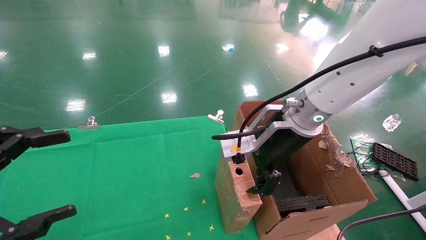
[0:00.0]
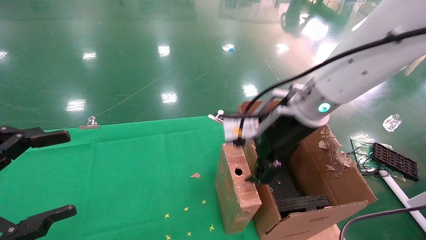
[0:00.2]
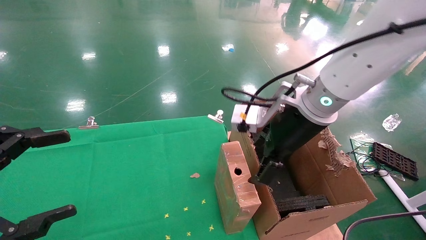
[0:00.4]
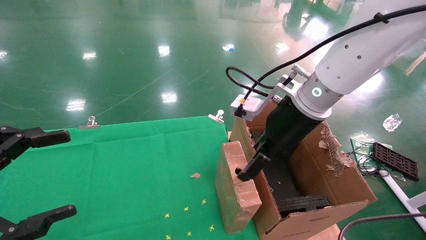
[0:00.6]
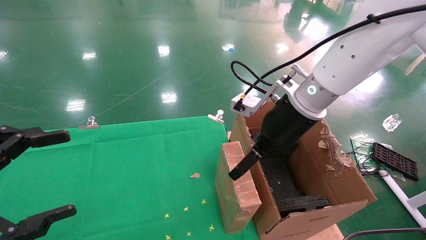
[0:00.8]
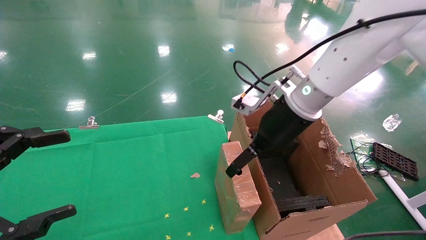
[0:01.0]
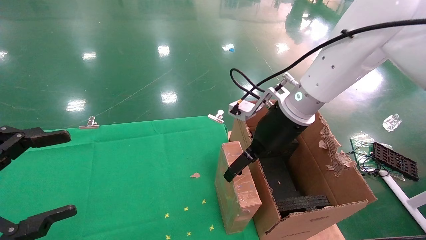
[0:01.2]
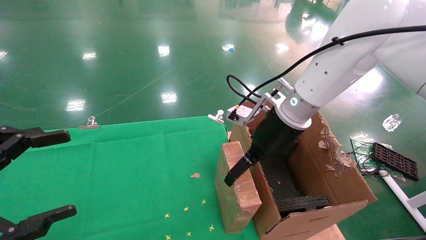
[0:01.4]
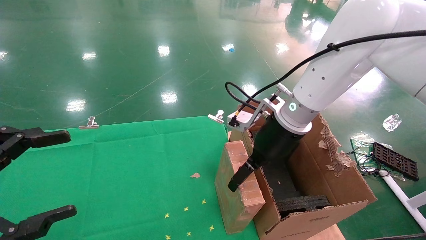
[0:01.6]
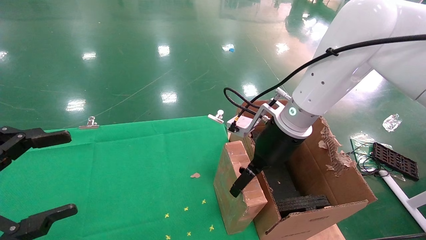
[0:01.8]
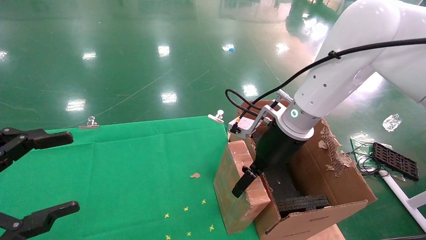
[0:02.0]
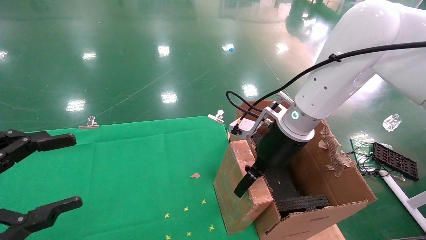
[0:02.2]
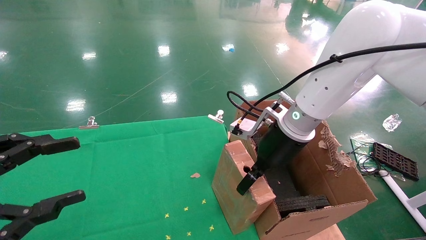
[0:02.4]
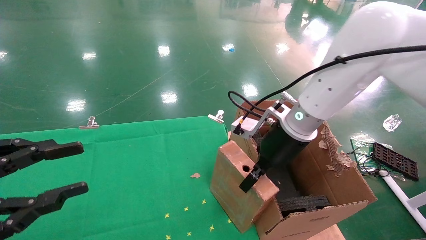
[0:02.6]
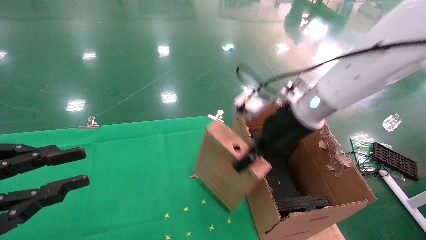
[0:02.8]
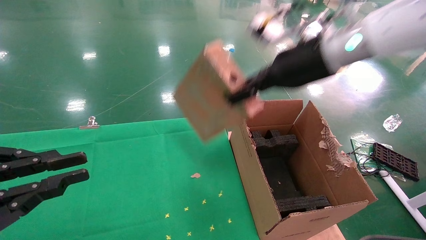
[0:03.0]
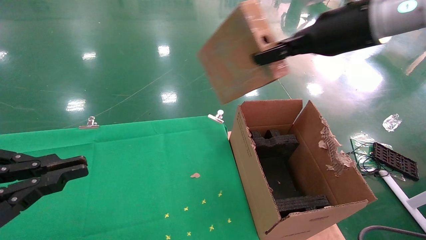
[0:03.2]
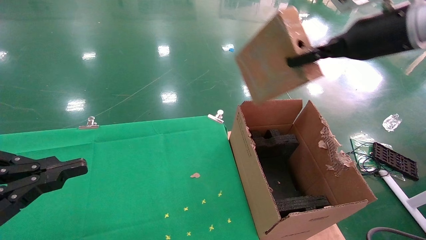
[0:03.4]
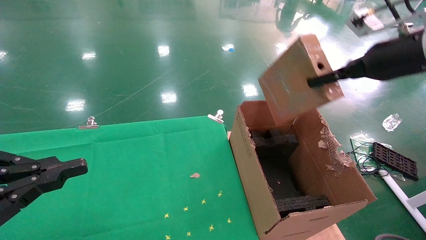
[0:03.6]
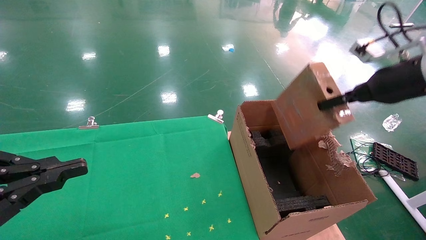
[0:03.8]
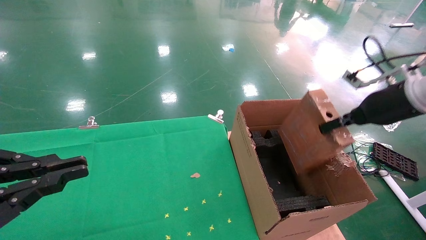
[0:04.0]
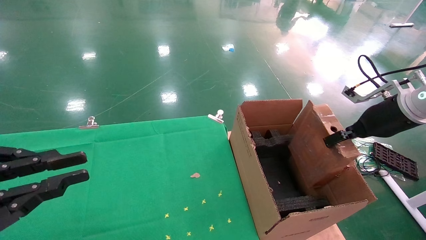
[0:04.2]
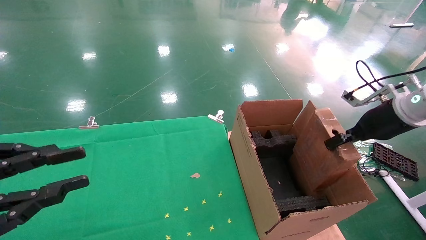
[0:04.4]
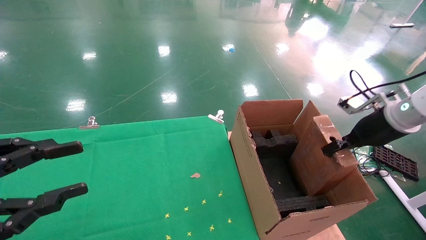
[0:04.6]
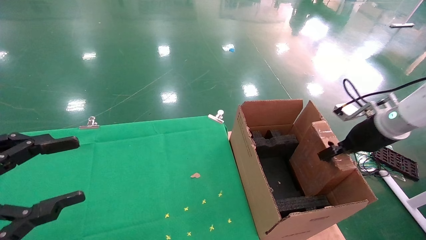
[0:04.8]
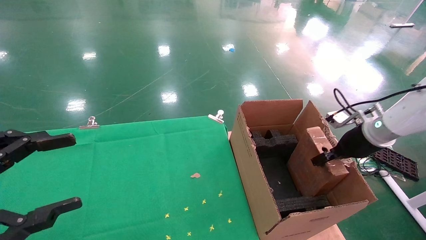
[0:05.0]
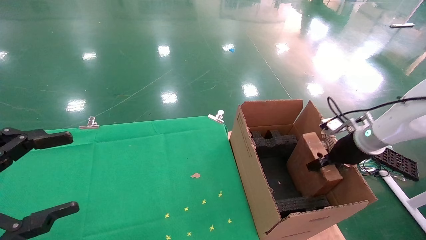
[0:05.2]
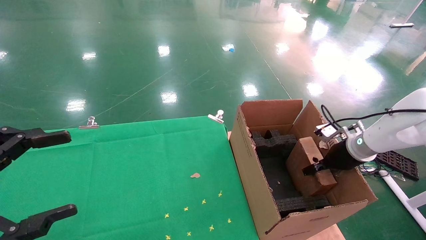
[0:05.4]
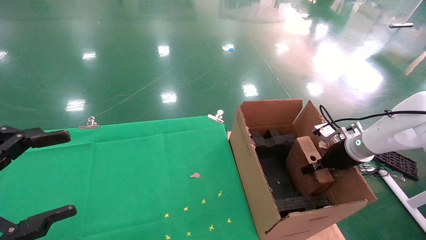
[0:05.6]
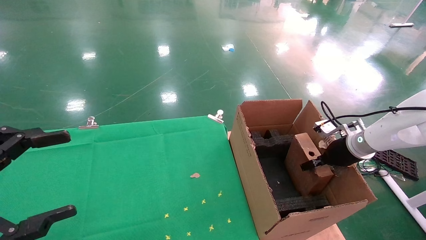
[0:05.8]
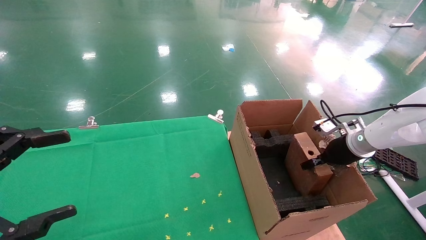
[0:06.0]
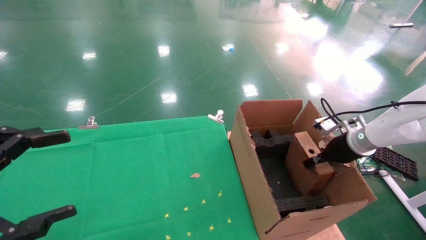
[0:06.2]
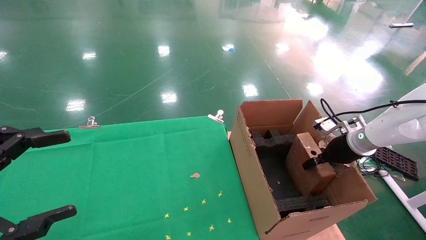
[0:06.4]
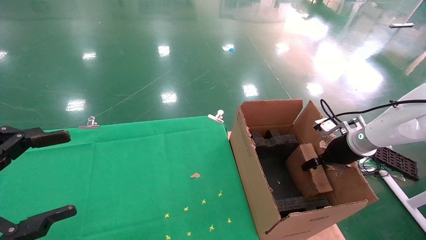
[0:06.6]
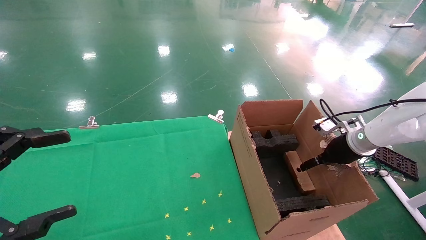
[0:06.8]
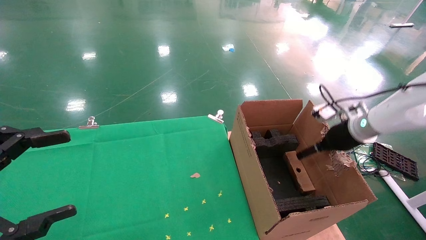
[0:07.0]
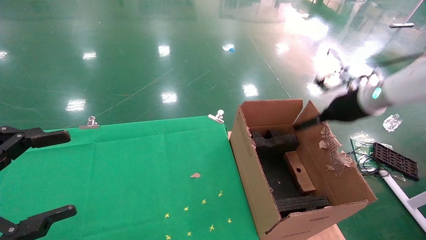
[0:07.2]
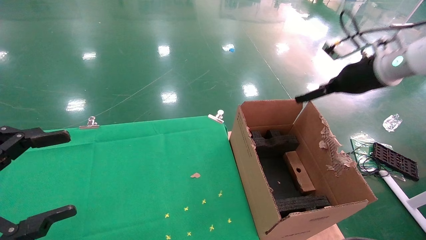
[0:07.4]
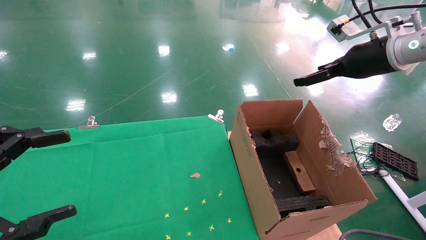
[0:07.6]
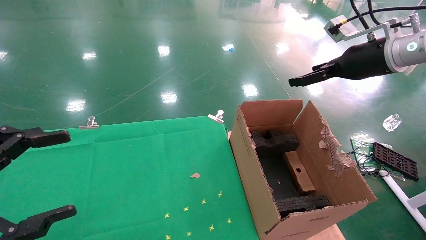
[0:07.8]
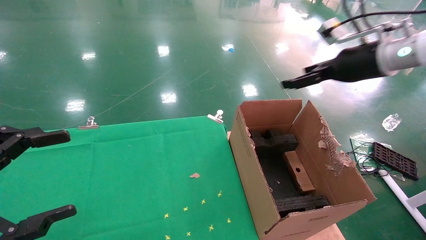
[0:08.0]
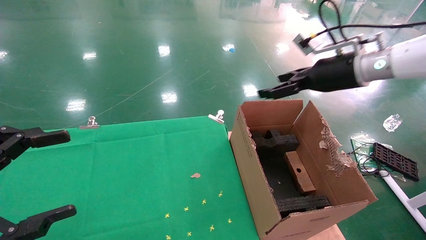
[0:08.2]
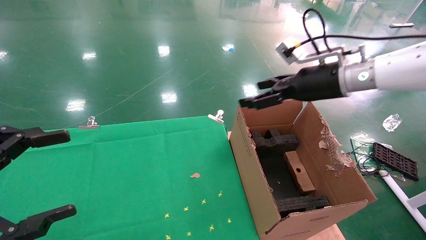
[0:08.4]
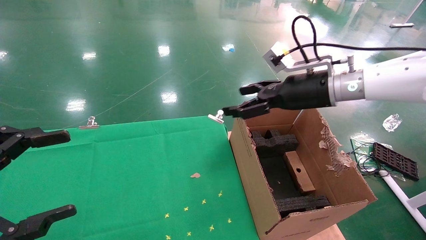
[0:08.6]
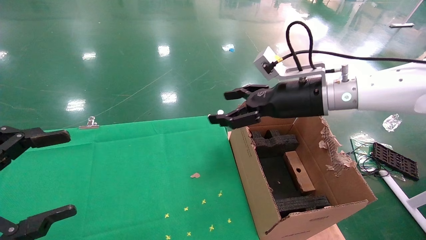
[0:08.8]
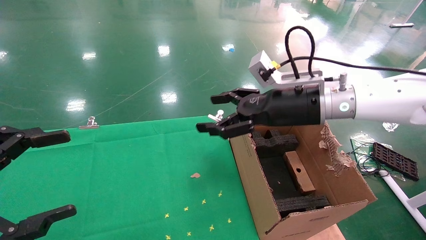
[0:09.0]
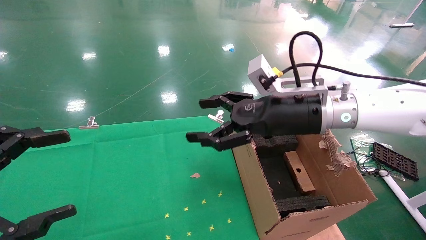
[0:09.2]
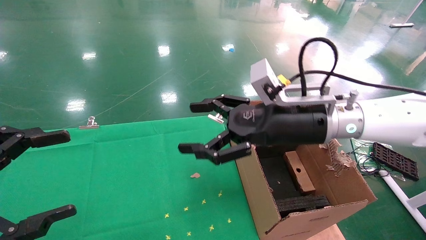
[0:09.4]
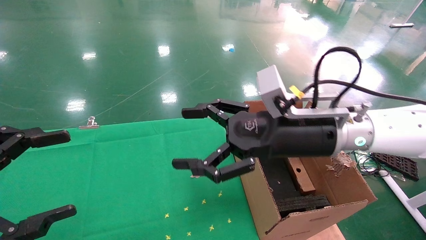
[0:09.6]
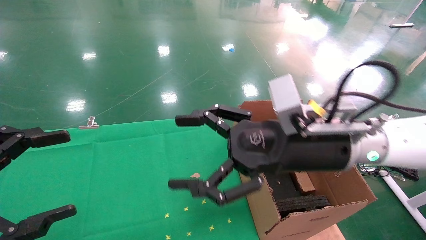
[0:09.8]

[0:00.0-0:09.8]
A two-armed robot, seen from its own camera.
Task of the whole recording: using a robotic arm to pick up a cardboard box and palace it the carton.
Step, 0:00.0 to 0:02.6: Pick up the mouse and the power cord paper box.
Step, 0:02.8 to 0:06.8: Place the mouse and the power cord paper box into the container.
0:00.0 to 0:01.4: The right gripper changes place by some 5 cm.
0:01.4 to 0:02.8: The left gripper closes; the right gripper closes.
0:02.8 to 0:04.2: The right gripper is displaced to the right by roughly 20 cm.
0:04.2 to 0:05.6: The right gripper is displaced downward and forward by about 15 cm. Meanwhile the left gripper opens its fingers.
0:05.6 to 0:07.0: The right gripper shifts about 5 cm upward, and opens its fingers.
0:07.0 to 0:08.4: The right gripper travels to the left and upward by approximately 15 cm.
0:08.4 to 0:09.8: The right gripper goes about 20 cm backward, to the left and downward.

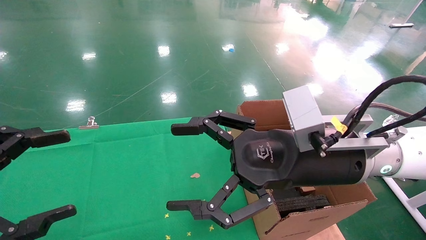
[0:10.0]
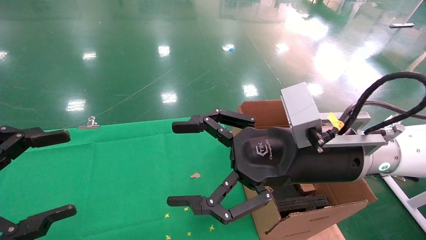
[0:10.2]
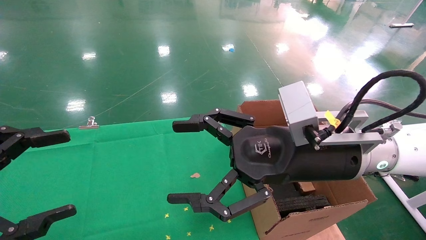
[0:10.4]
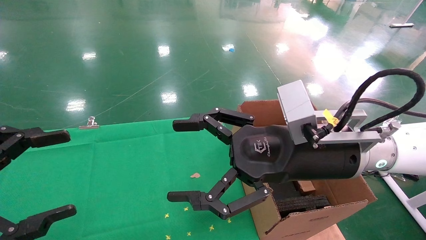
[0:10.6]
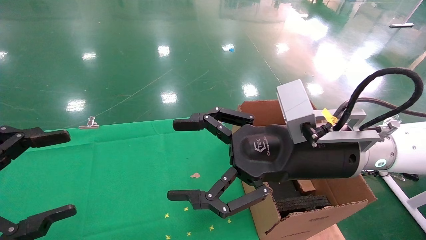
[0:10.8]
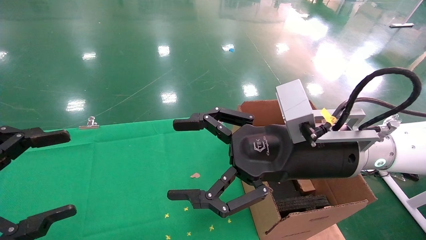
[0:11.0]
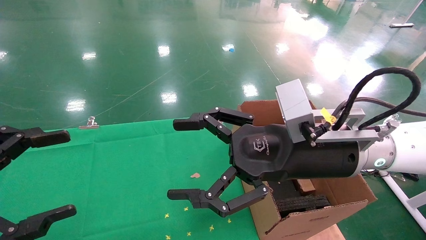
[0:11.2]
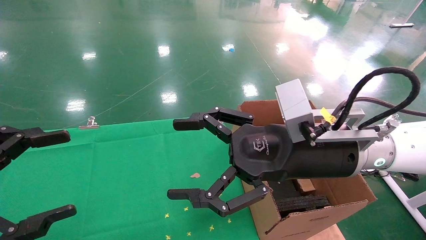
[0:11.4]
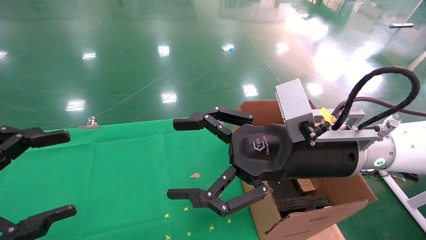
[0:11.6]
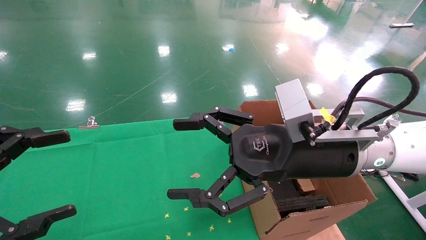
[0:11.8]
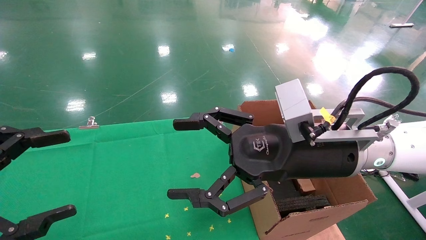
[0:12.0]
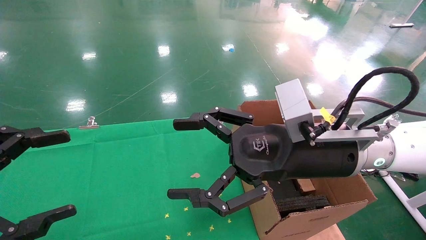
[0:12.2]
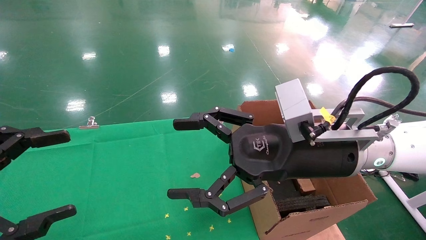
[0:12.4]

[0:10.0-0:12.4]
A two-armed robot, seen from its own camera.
Task of the whole recording: using a robotic arm to pick up a cardboard box and palace it the carton.
0:10.0 to 0:12.4: Both grippers stay put.
